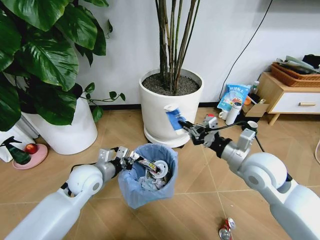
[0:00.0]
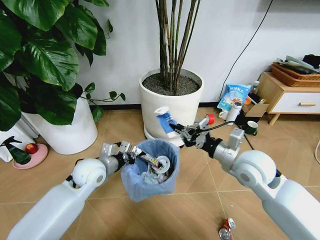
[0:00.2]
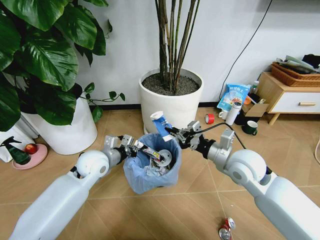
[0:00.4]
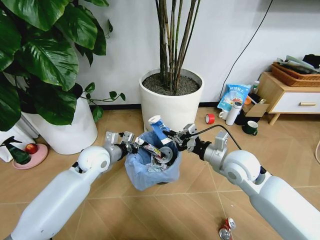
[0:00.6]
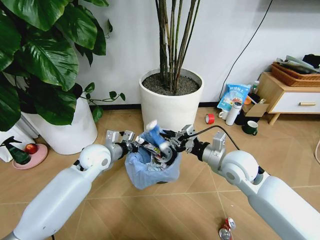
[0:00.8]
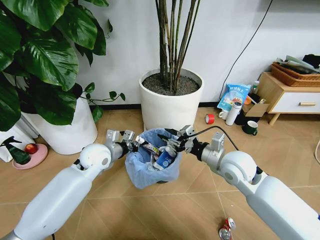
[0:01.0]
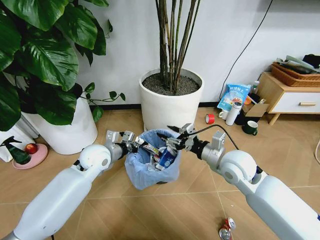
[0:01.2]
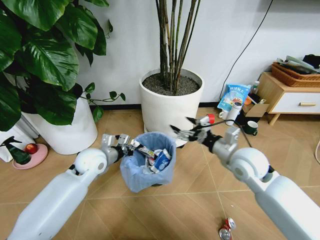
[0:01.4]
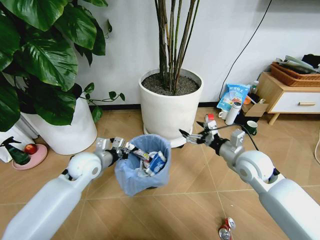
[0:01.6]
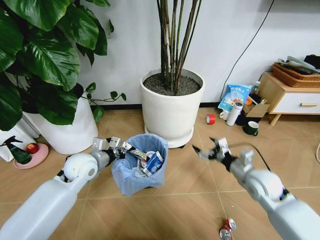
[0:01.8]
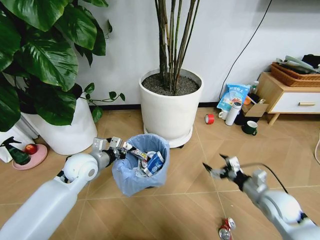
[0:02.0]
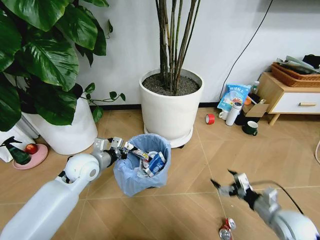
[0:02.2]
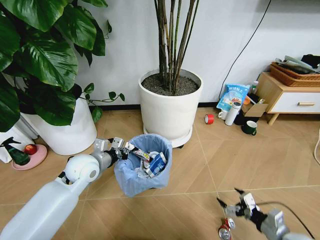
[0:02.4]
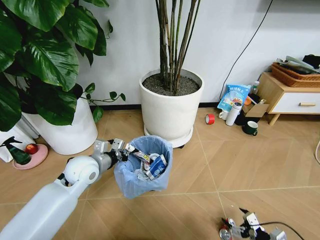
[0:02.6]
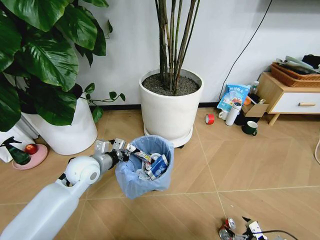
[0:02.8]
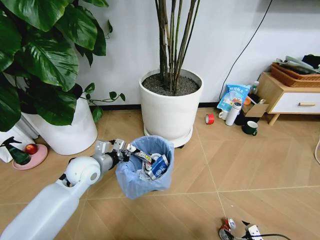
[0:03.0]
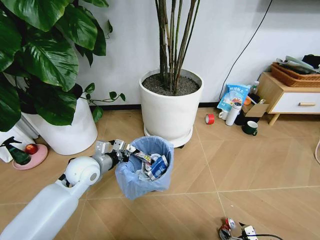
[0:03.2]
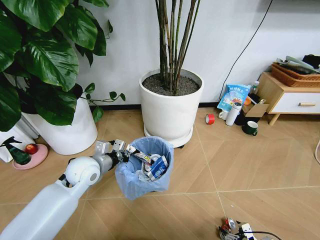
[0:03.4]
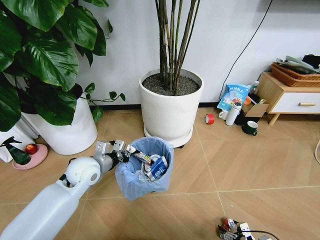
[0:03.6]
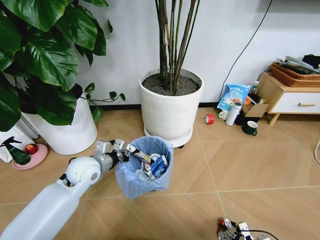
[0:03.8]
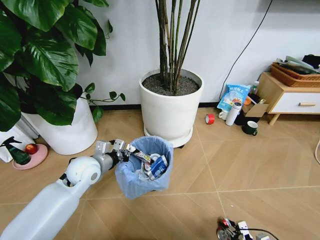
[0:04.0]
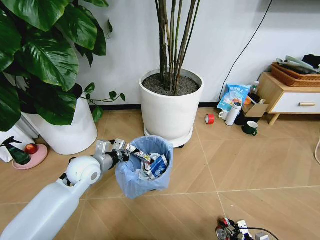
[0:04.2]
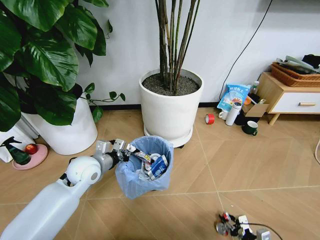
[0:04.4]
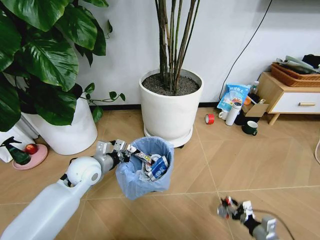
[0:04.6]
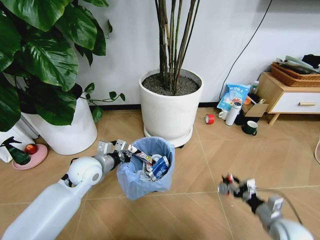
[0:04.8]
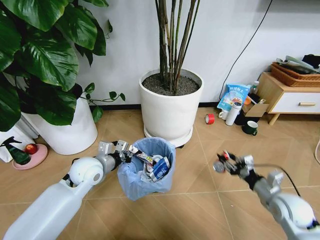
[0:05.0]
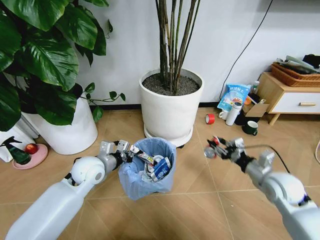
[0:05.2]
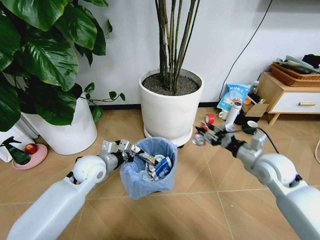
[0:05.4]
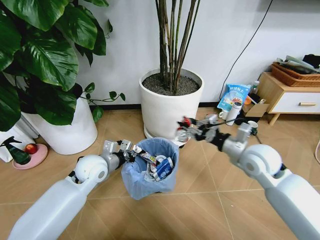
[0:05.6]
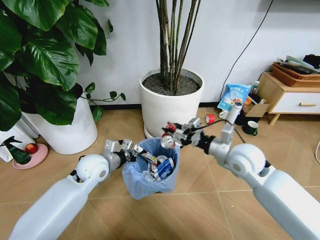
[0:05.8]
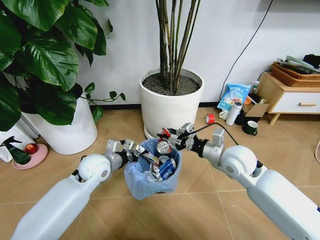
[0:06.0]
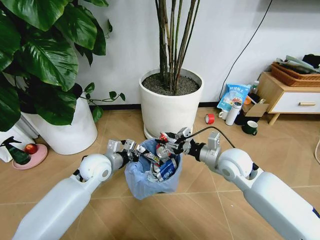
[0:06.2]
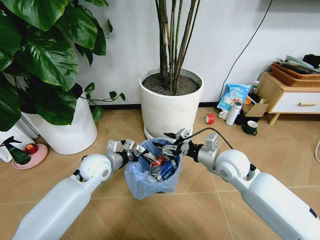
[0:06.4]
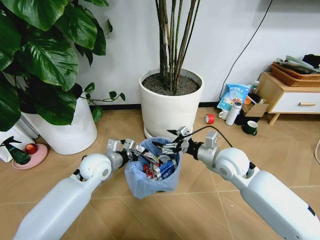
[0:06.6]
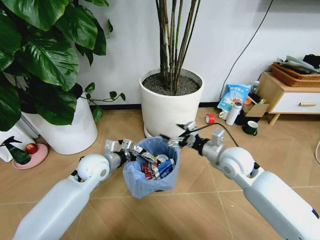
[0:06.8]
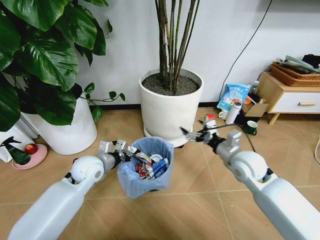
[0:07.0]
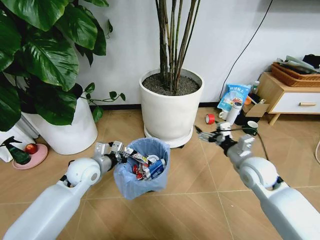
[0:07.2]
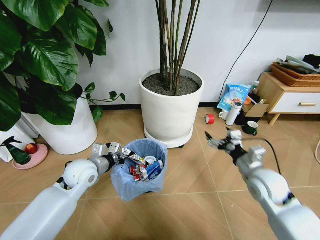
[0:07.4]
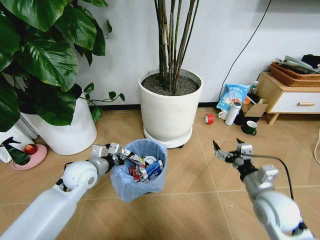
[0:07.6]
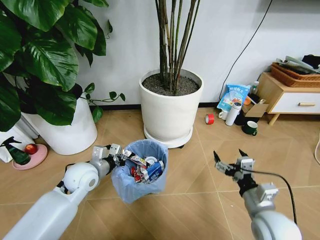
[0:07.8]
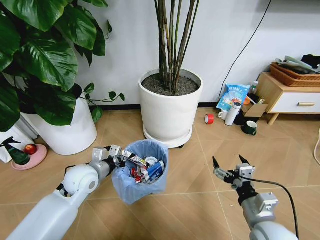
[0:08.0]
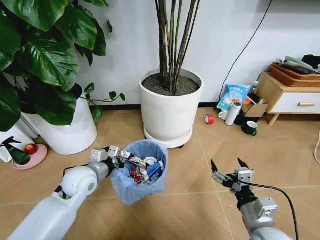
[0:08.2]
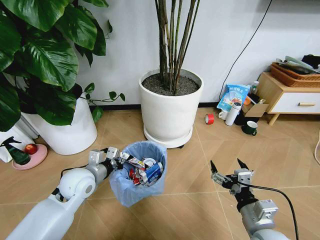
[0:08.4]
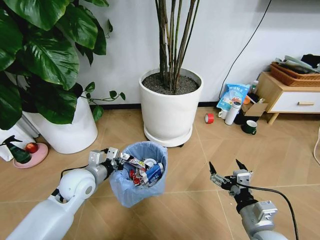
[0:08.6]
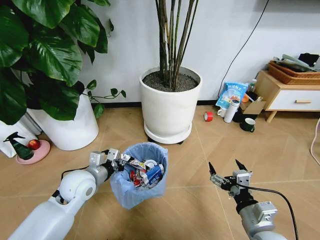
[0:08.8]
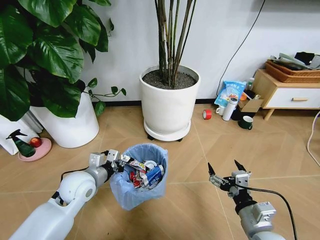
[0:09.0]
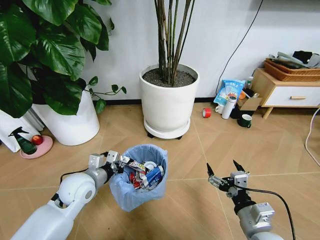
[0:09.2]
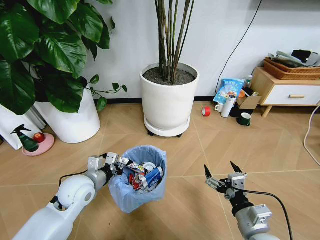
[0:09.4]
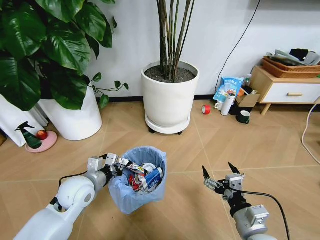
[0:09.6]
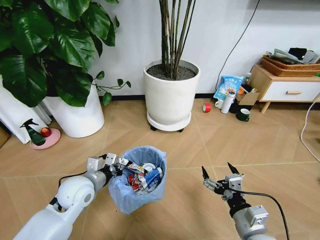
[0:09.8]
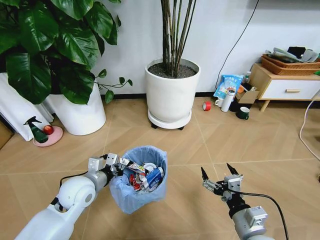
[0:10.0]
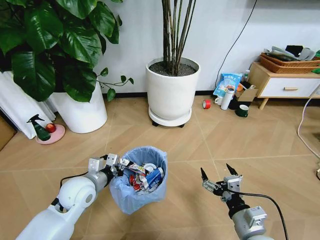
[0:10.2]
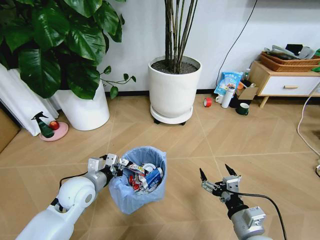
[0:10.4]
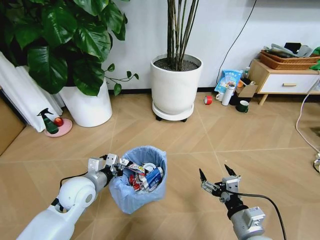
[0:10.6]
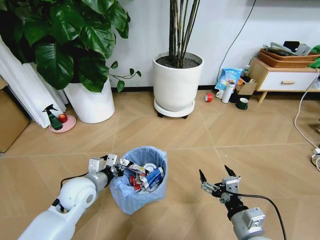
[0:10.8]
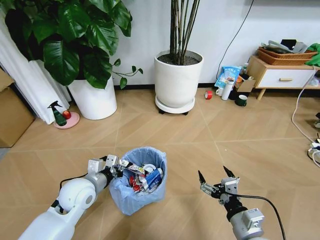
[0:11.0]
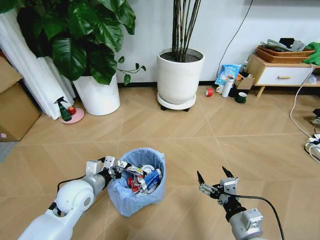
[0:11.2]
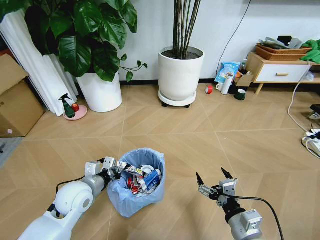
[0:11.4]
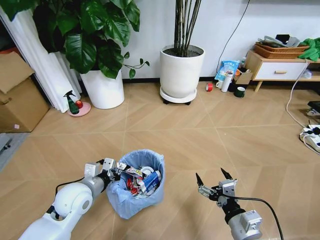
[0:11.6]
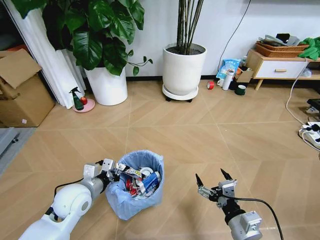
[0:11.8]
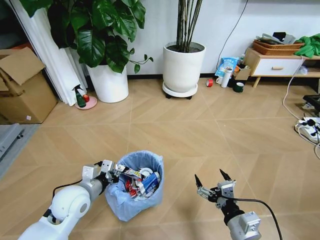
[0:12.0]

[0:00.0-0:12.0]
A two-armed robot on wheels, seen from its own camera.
Task of the whole recording: Pick up the trash bin and place the garbage on the floor into it.
0:00.0 to 0:01.6: The right gripper heads downward, covering approximately 5 cm, and opens its fingers.
0:01.6 to 0:03.0: The right gripper travels backward, downward and to the right by some 40 cm.
0:03.0 to 0:04.4: The right gripper moves approximately 5 cm, and closes up.
0:04.4 to 0:06.0: The right gripper moves upward, forward and to the left, approximately 40 cm.
0:06.0 to 0:07.6: The right gripper travels backward, to the right and downward by about 15 cm, and opens its fingers.
0:07.6 to 0:09.0: The right gripper is displaced backward and to the left by some 10 cm.

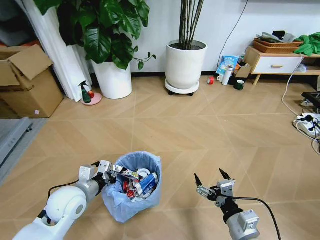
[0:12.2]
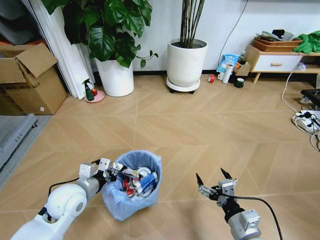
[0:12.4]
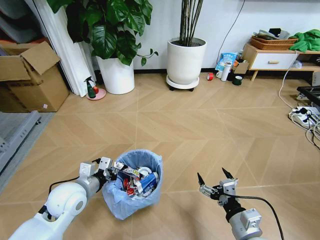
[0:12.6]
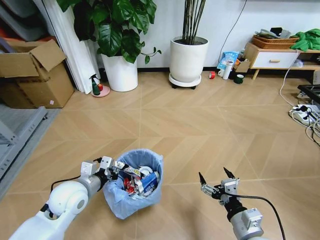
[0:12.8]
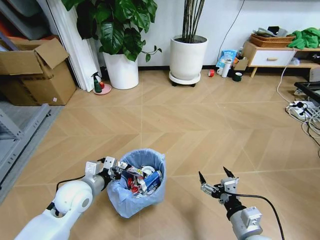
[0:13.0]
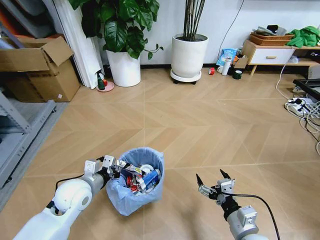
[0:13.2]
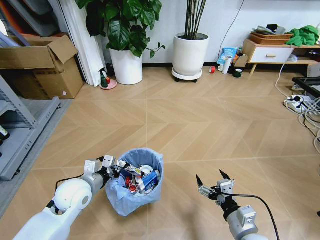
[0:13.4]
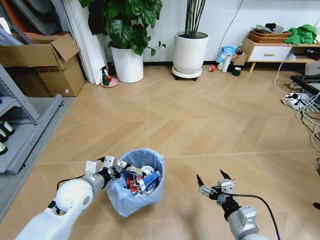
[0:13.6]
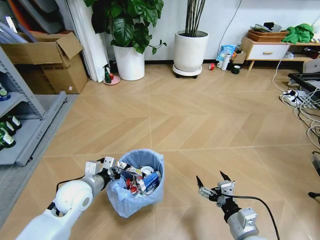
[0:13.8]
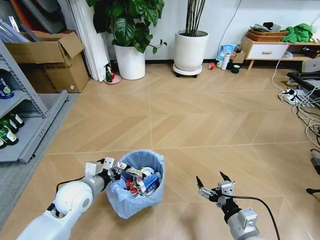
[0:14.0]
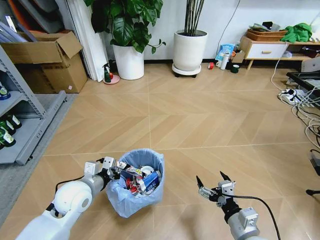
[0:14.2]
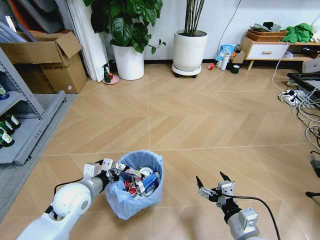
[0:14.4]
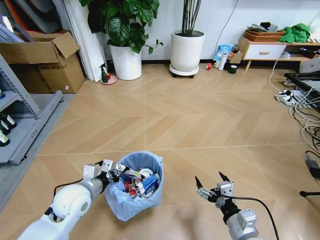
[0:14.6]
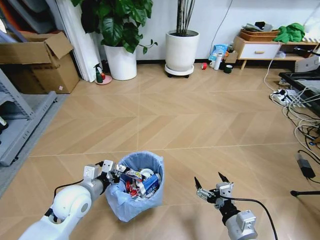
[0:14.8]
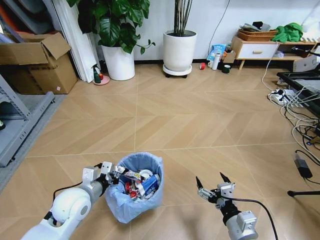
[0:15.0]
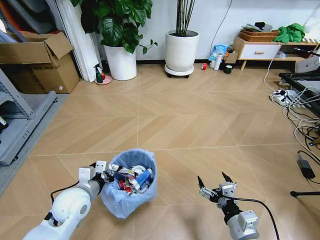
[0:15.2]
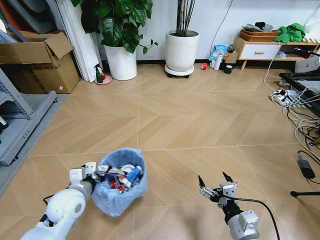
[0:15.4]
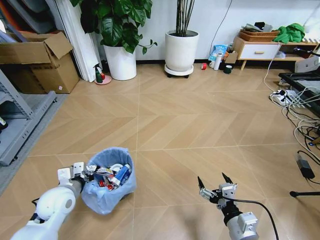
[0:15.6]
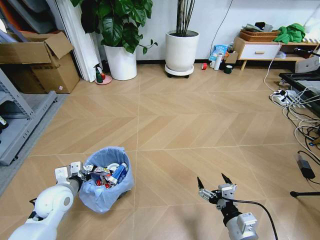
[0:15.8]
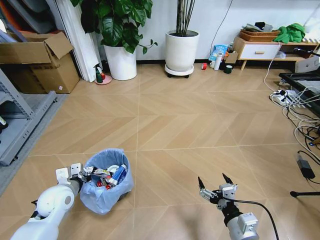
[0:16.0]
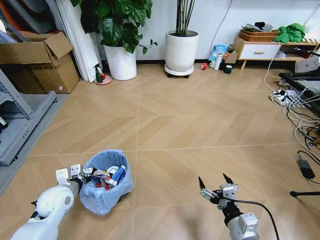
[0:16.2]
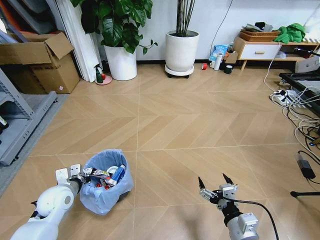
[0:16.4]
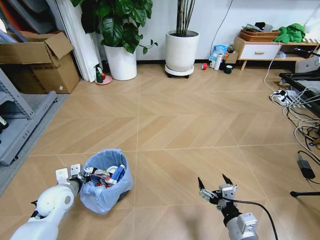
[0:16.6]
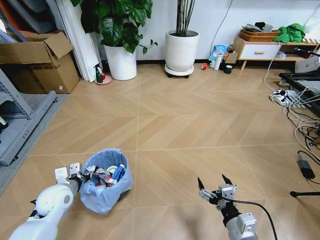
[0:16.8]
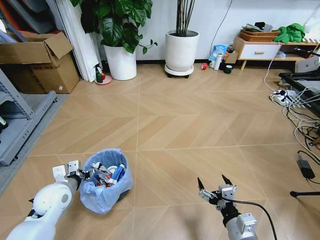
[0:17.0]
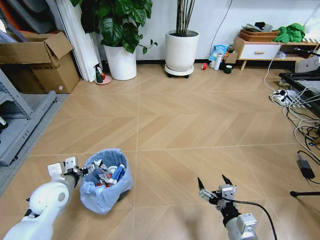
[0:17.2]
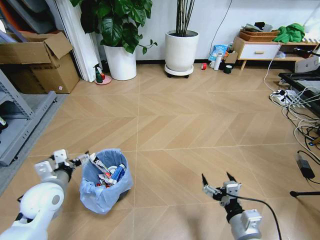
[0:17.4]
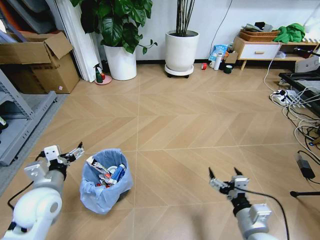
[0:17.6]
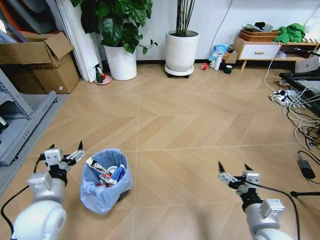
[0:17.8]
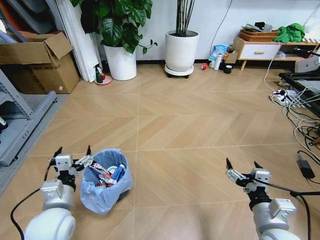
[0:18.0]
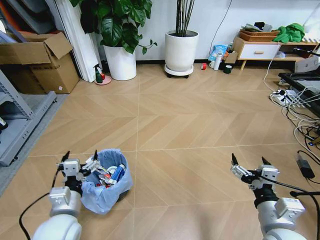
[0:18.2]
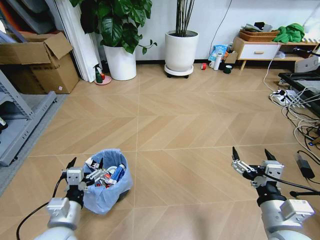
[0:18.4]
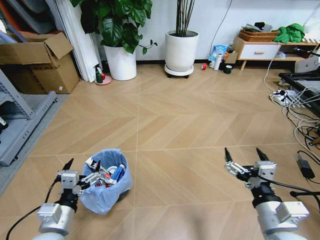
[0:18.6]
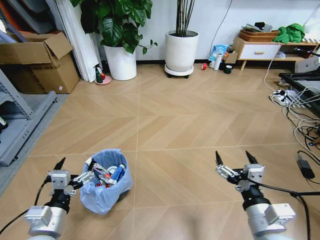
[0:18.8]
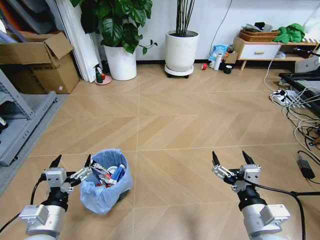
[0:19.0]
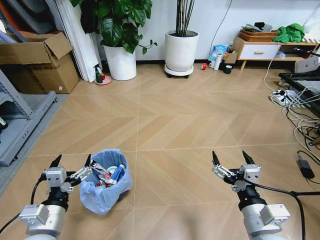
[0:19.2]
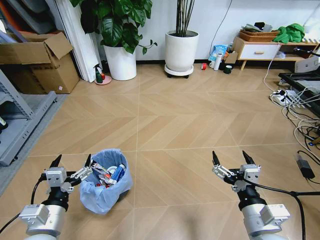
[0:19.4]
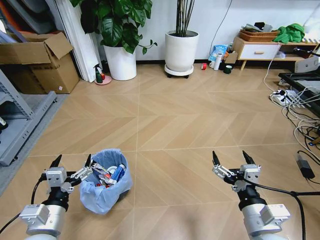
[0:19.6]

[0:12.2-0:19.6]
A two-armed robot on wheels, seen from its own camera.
Task of the whole recording: Pick up the trash bin and place the garbage on the floor into it.
0:15.2 to 0:16.6: The left gripper shifts approximately 10 cm to the left.
0:16.6 to 0:18.2: The right gripper moves upward, approximately 10 cm; the left gripper goes some 15 cm backward and to the right, and opens up.
0:18.2 to 0:19.6: The left gripper moves some 5 cm.
